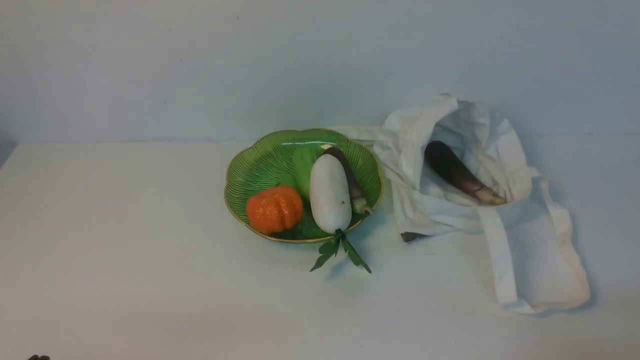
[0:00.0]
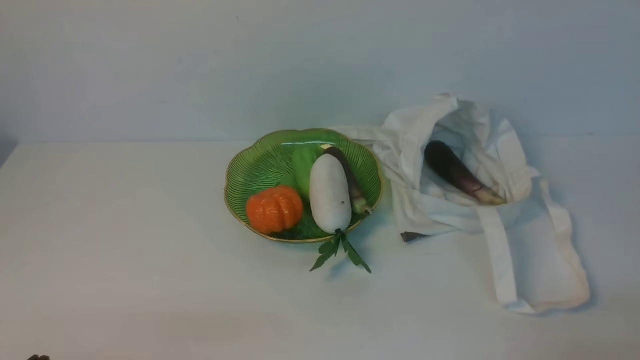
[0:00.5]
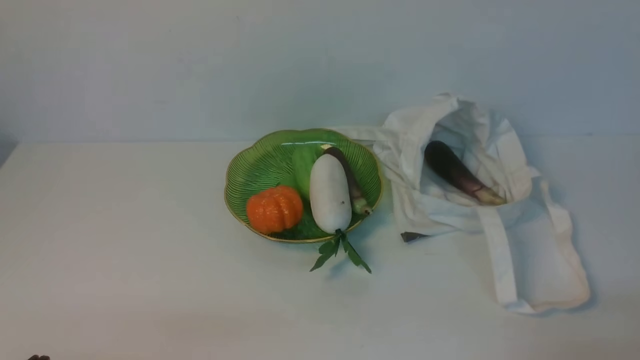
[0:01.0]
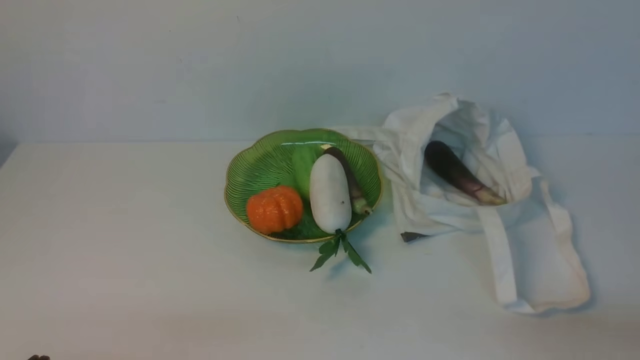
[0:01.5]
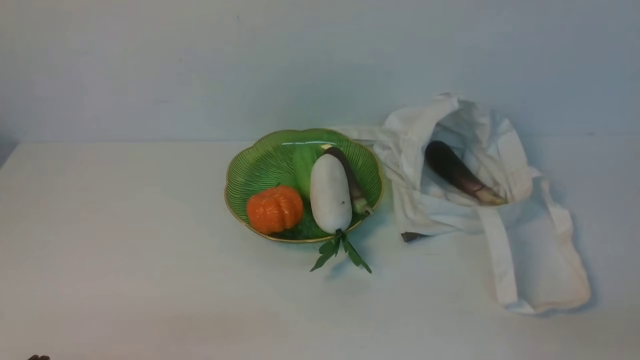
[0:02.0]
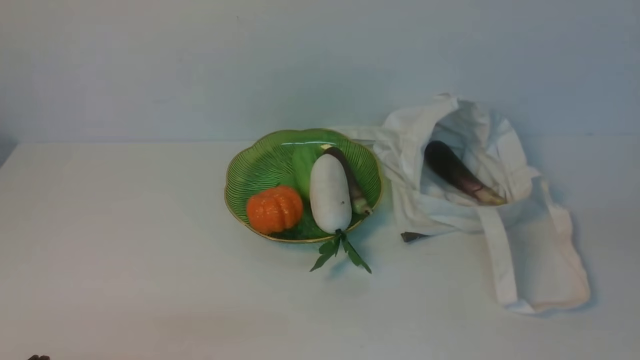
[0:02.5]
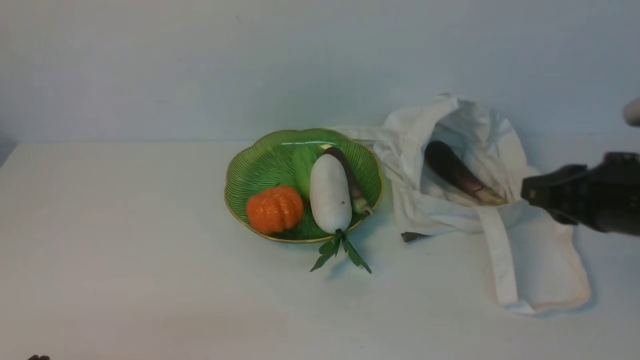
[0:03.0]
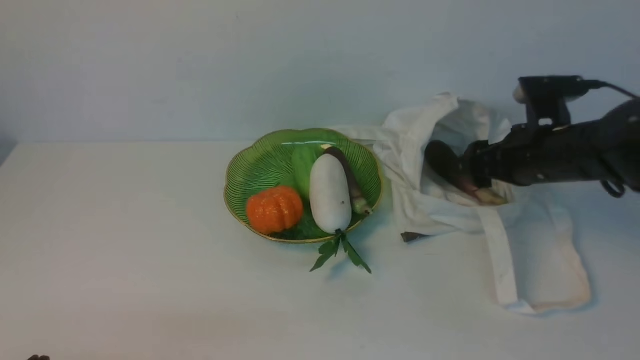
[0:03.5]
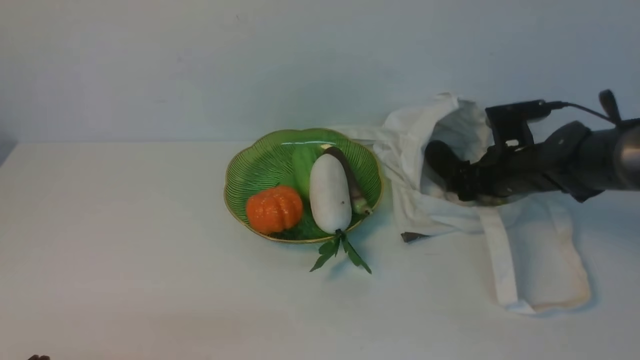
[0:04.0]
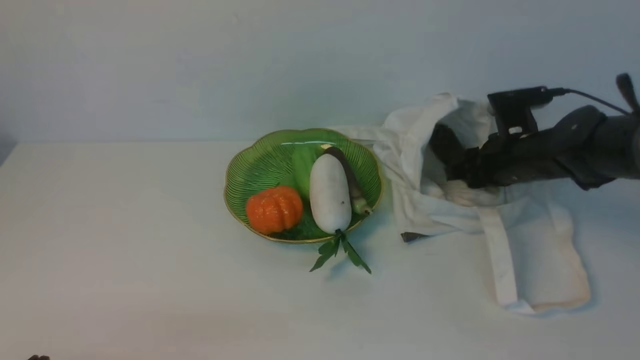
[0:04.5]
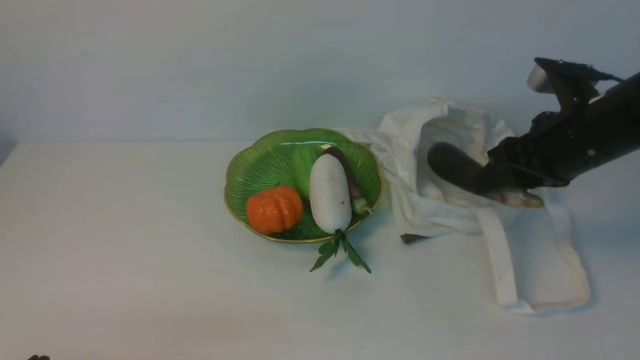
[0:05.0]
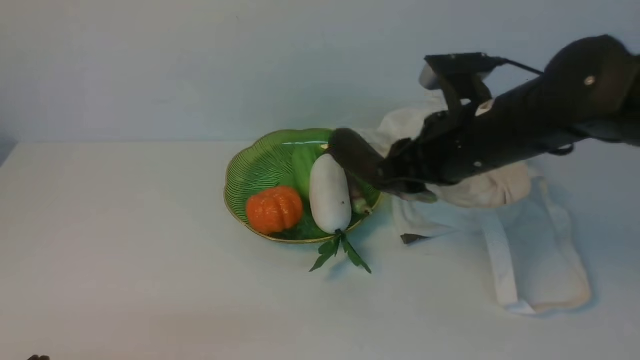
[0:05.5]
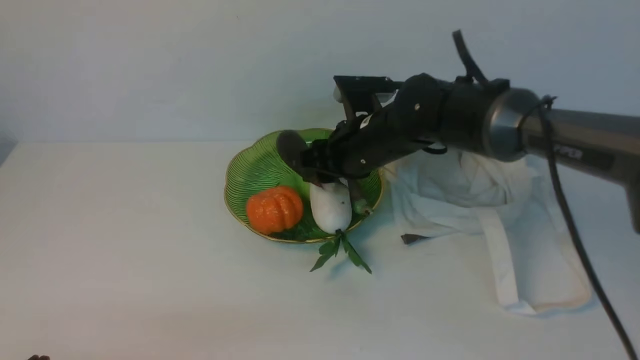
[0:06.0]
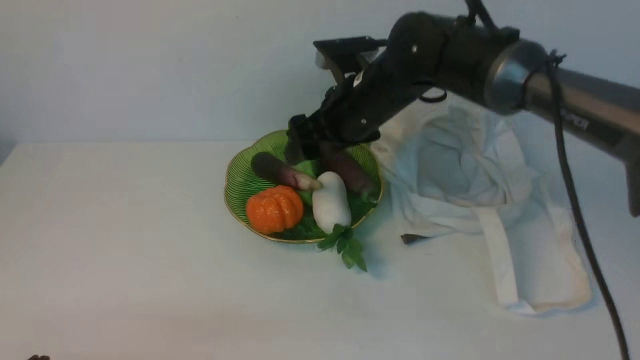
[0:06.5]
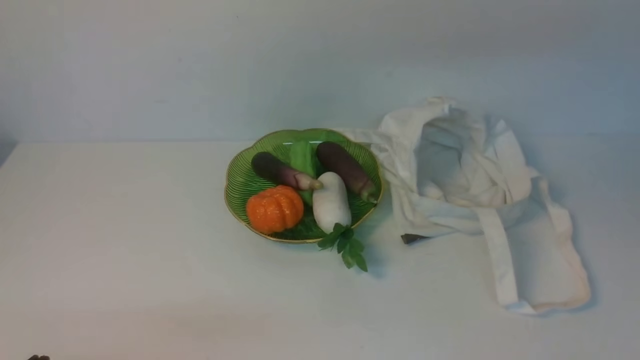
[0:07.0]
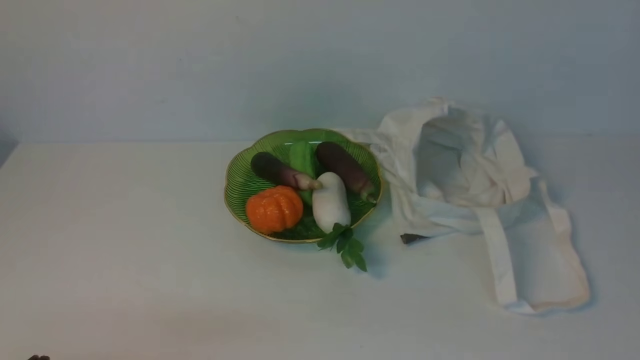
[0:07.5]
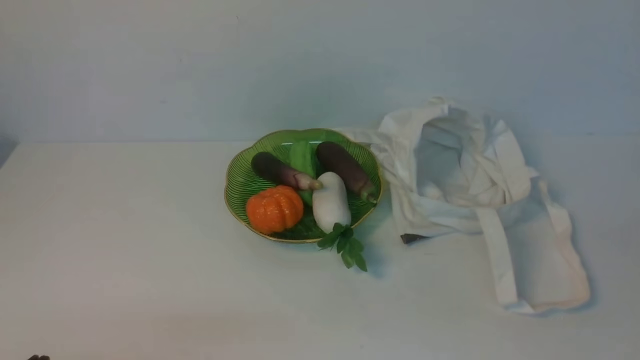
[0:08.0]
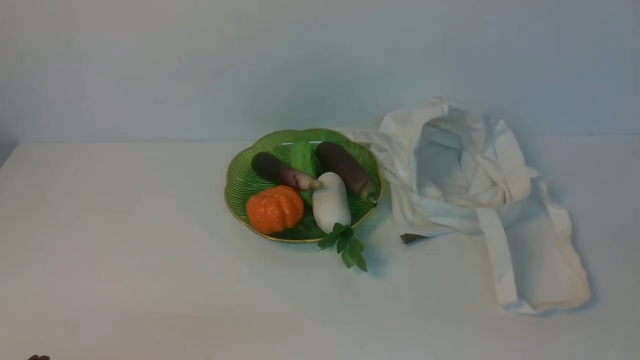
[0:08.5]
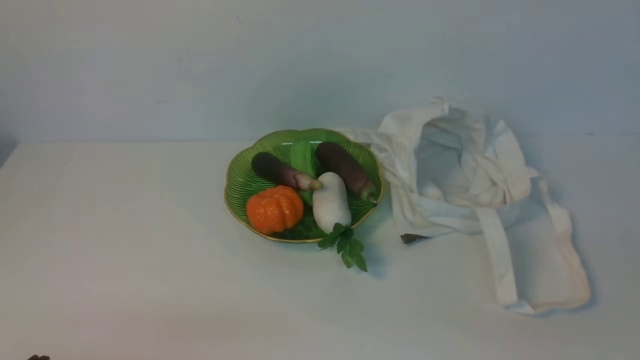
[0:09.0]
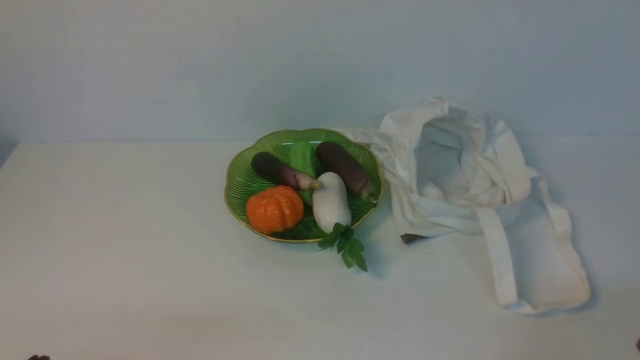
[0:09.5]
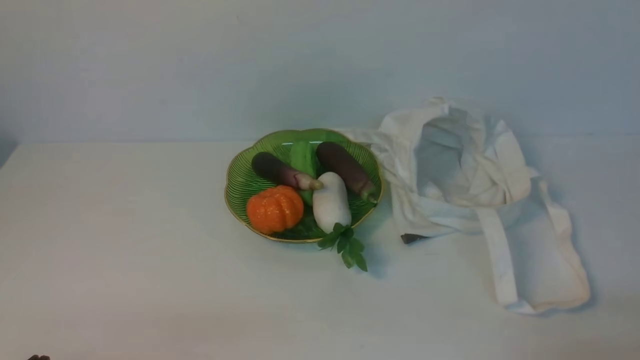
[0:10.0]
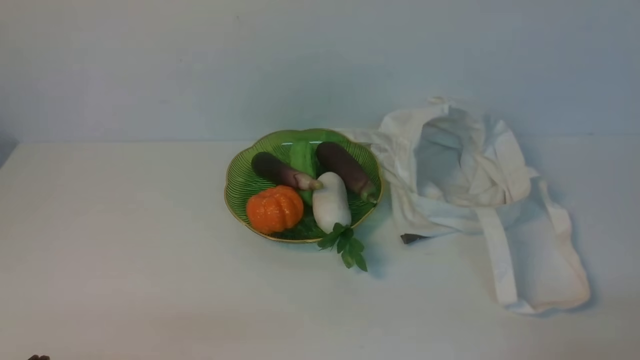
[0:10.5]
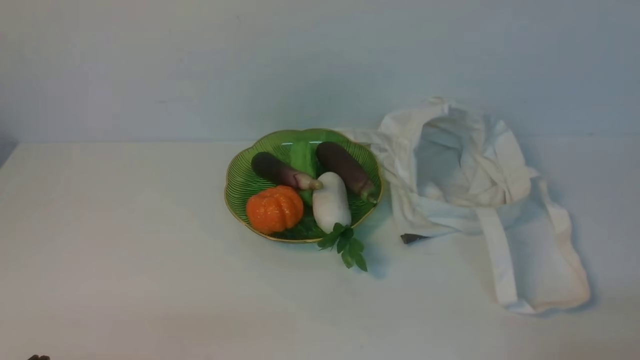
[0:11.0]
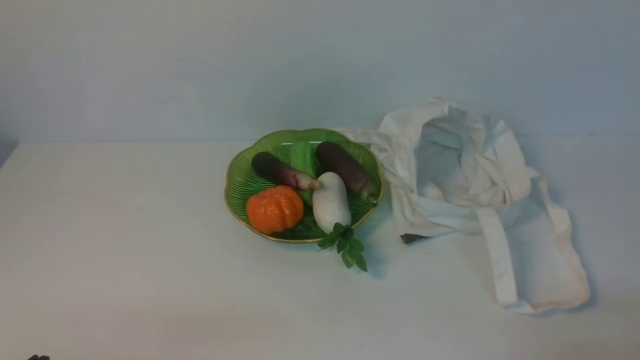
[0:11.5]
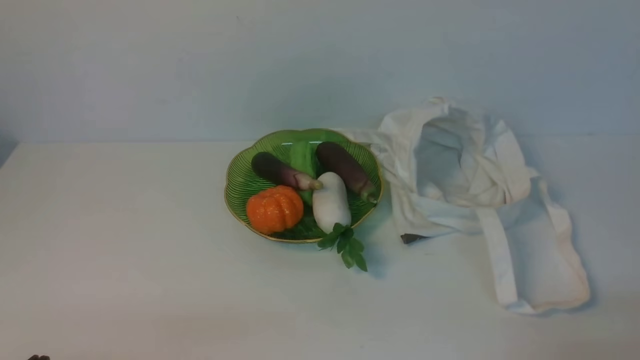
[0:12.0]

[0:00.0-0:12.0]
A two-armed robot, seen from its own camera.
Task of the whole recording: take vegetables from cloth bag on white table place on plate.
Step, 0:00.0 to 0:04.0: Grasp the eggplant with right gripper.
Step, 0:04.5 to 0:06.5: Place the eggplant on the plate with right gripper.
0:02.0 to 0:04.0: The right gripper travels forward by about 35 cm, and opens its fingers.
0:04.0 to 0:06.0: The right gripper goes roughly 20 cm to the left.
0:06.0 to 0:08.0: The right gripper moves backward and to the right, approximately 40 cm, and closes up.
0:10.0 to 0:12.0: Both grippers stay about where they are.
